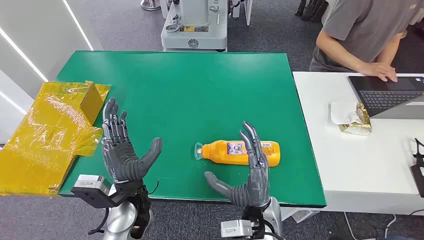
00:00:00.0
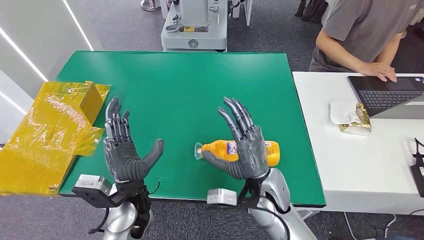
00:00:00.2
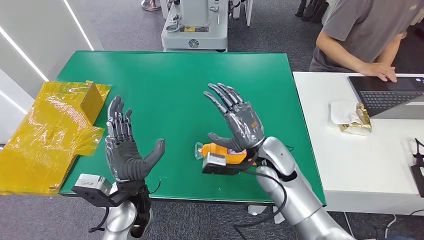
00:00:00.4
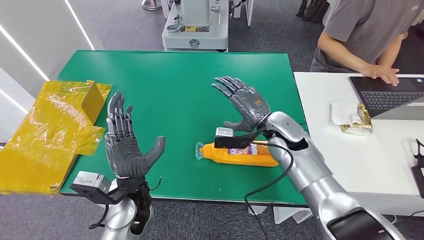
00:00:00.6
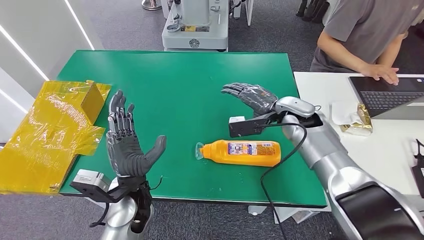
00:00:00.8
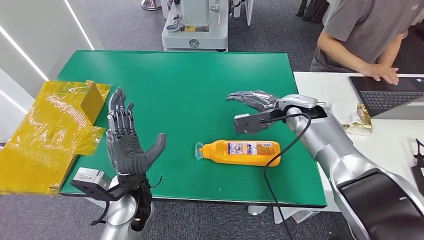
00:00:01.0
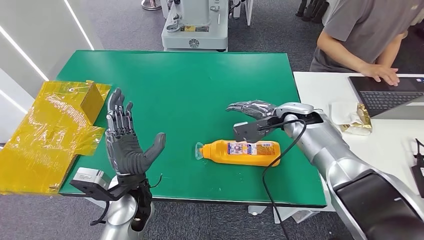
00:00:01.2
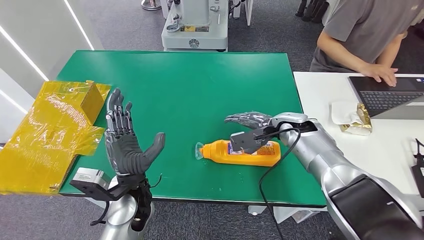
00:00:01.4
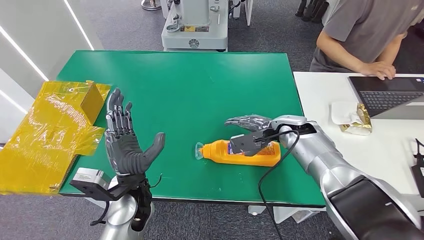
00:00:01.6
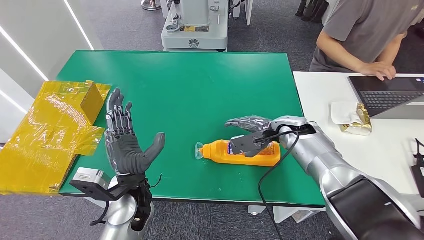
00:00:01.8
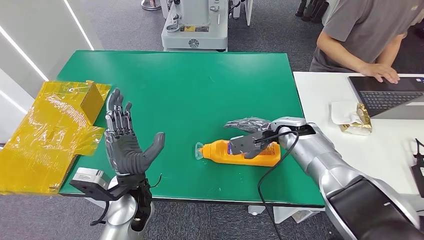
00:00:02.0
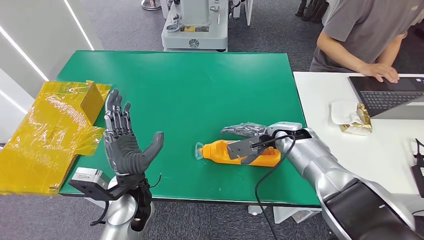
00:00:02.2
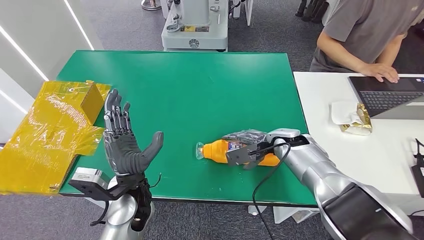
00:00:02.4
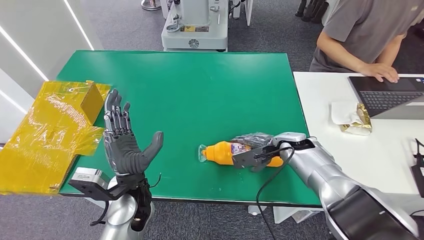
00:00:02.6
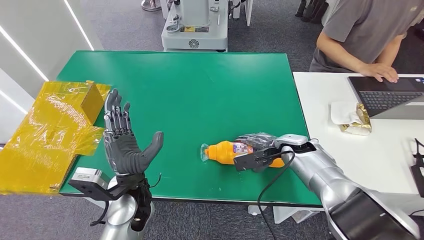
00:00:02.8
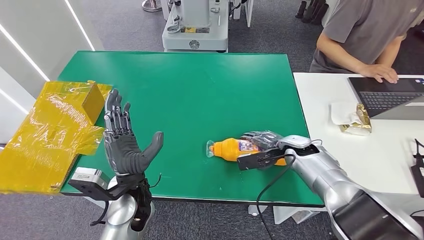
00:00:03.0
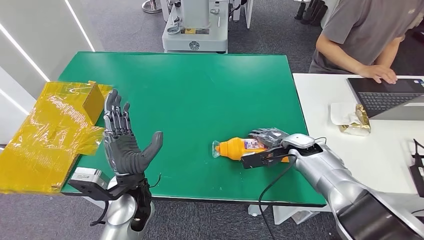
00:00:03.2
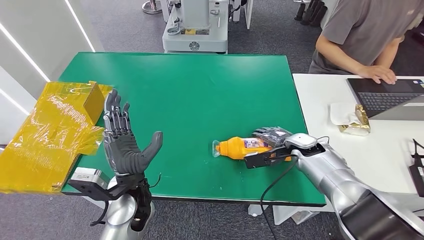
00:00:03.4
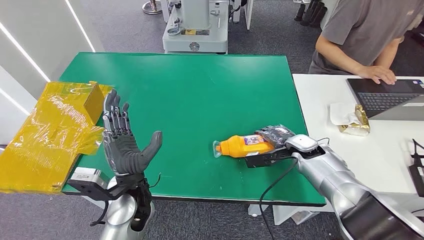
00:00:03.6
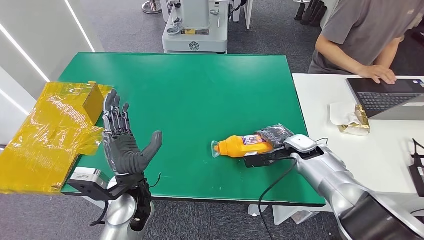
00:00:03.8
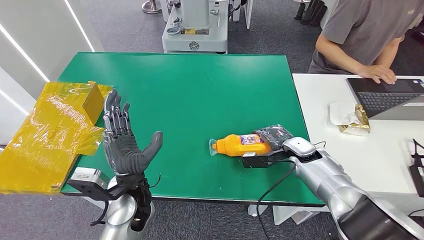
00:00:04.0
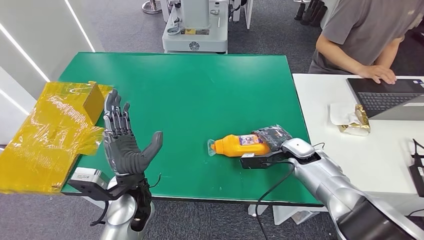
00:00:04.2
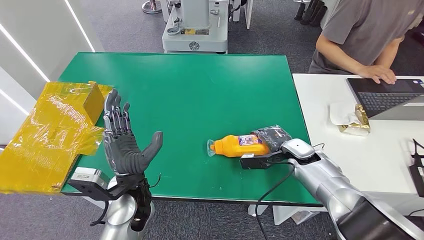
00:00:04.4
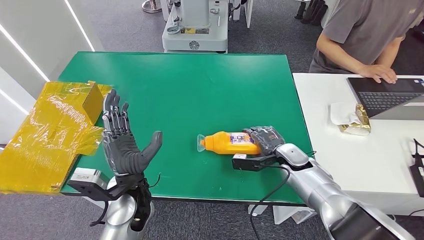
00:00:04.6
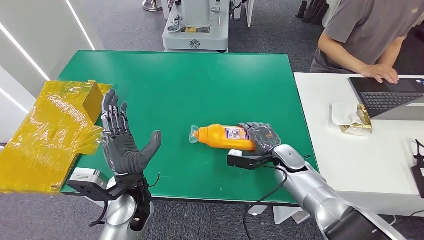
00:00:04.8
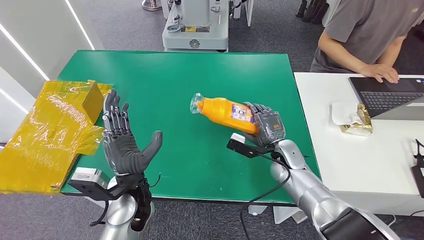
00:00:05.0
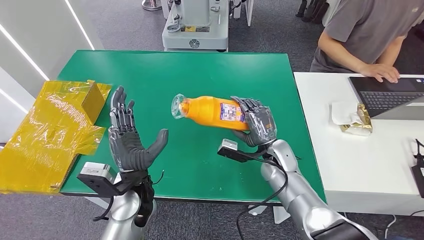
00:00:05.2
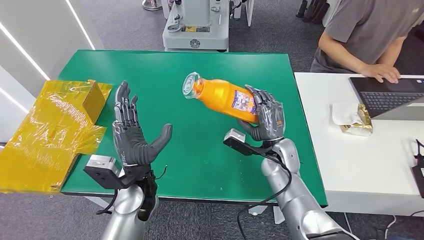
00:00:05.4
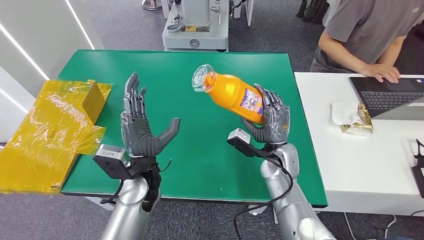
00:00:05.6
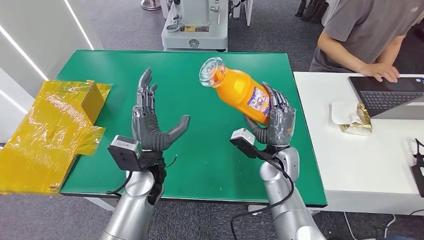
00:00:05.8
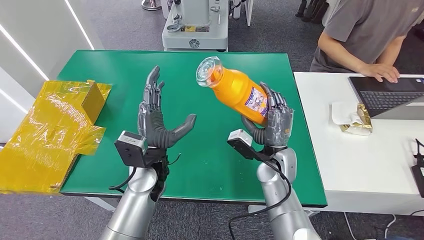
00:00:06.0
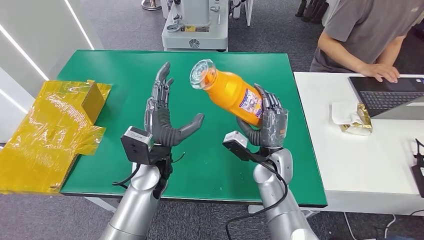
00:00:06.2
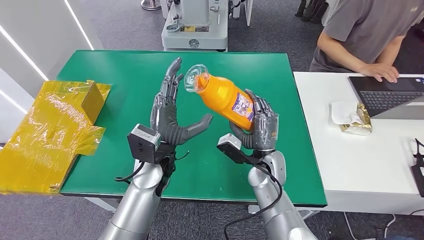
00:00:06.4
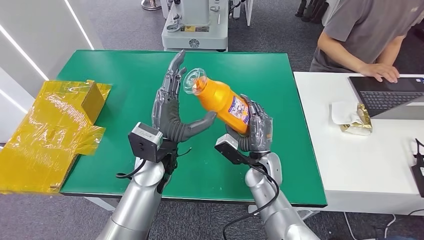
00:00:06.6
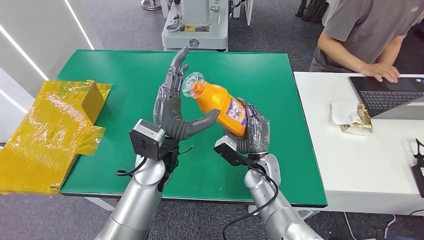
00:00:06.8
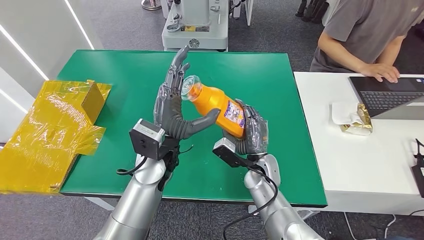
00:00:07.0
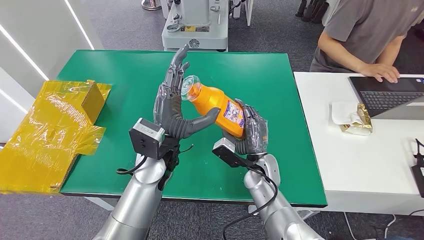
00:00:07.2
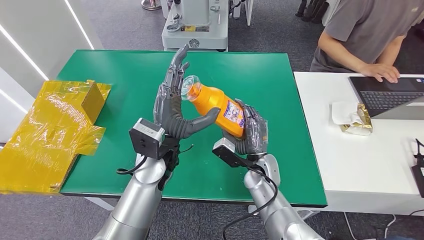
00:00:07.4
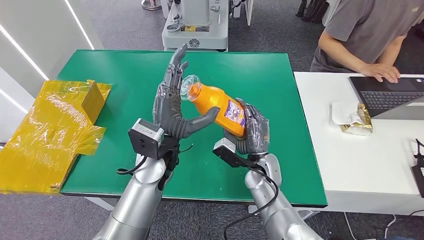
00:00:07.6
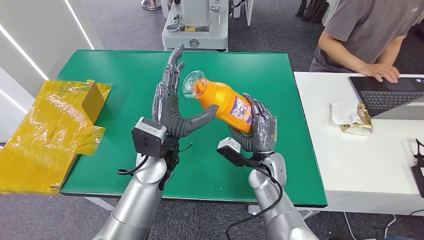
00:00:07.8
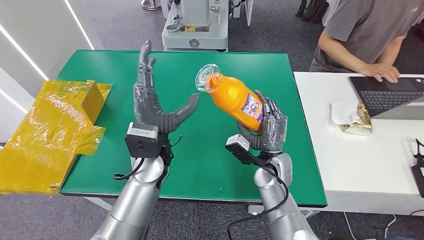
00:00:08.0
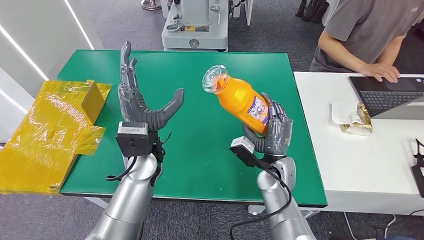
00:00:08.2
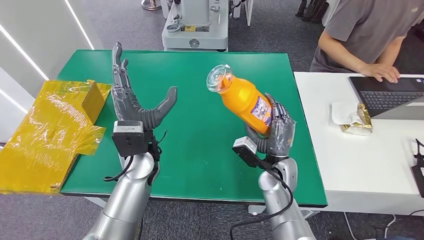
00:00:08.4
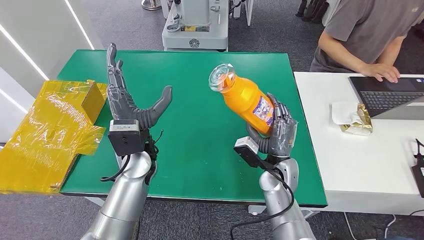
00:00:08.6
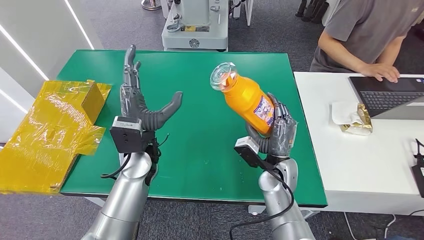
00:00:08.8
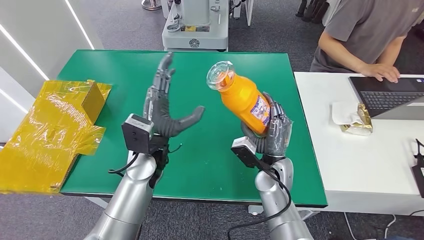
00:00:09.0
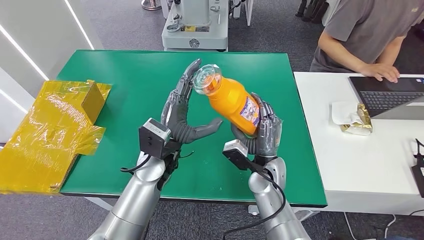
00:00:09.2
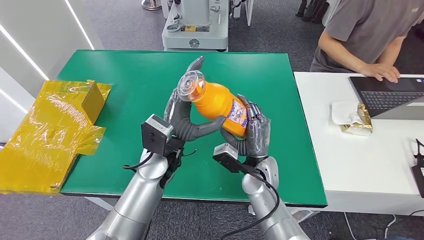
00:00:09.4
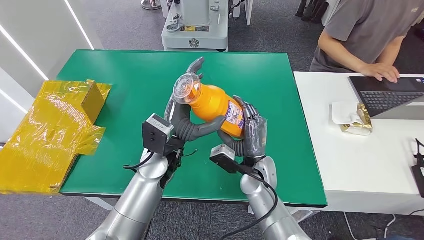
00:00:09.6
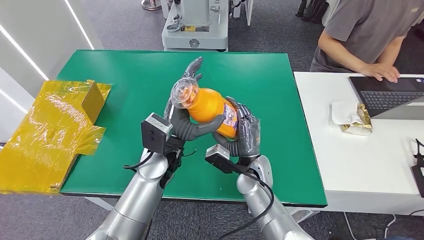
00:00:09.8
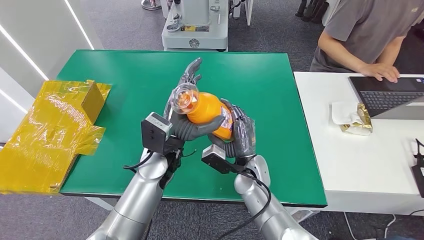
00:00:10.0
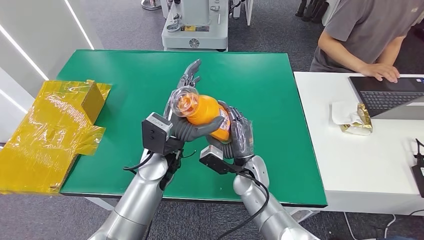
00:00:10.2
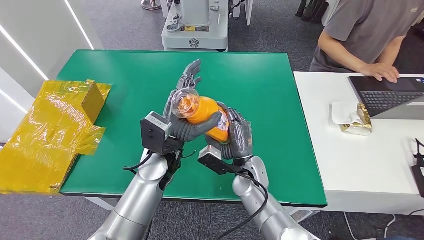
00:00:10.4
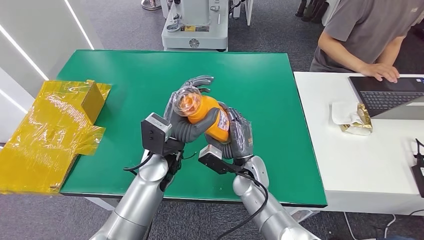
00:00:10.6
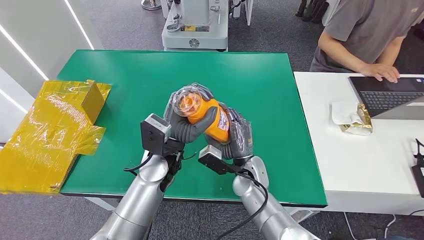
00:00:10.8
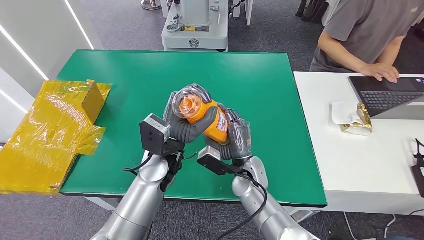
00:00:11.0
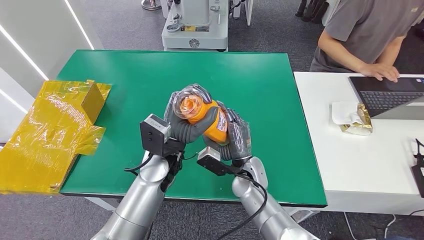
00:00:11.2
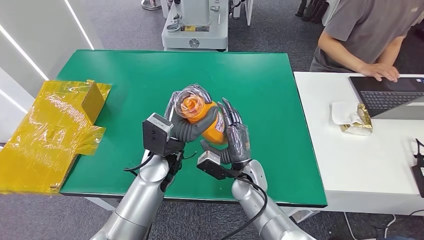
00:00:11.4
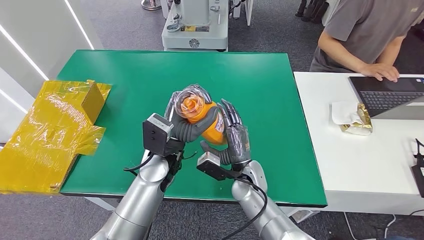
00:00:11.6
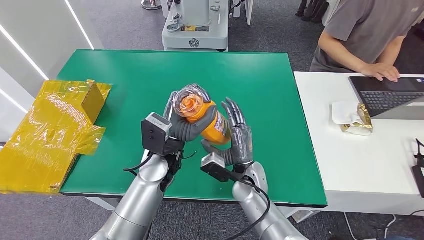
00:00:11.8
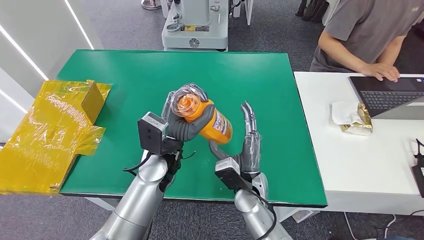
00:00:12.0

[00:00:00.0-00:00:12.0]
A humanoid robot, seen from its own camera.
Step, 00:00:00.0 to 00:00:05.6: Pick up the bottle from the table.
00:00:01.6 to 00:00:03.0: The right hand goes approximately 5 cm downward.
00:00:03.0 to 00:00:04.4: The hands move only a little.
00:00:06.0 to 00:00:07.6: The left hand moves upward, some 5 cm. The right hand moves roughly 5 cm.
00:00:09.0 to 00:00:10.4: The right hand moves to the left, roughly 5 cm.
00:00:10.4 to 00:00:12.0: The hands make only small movements.

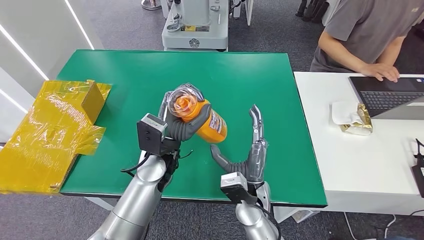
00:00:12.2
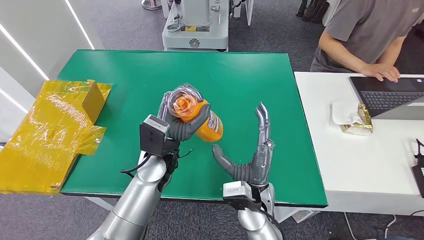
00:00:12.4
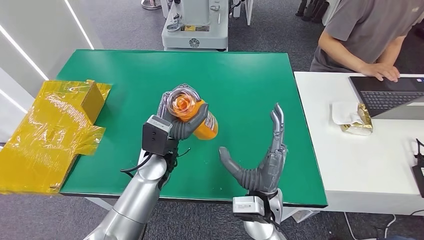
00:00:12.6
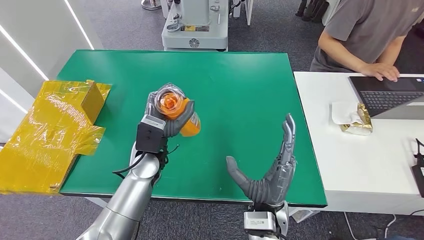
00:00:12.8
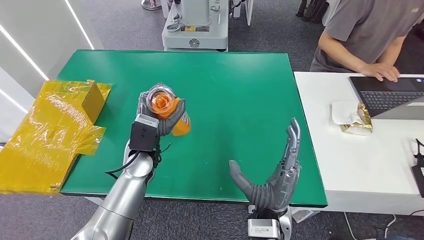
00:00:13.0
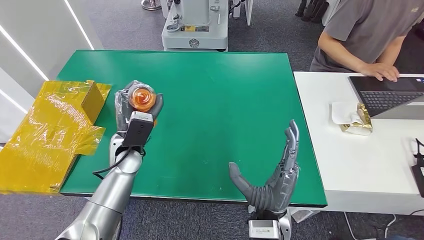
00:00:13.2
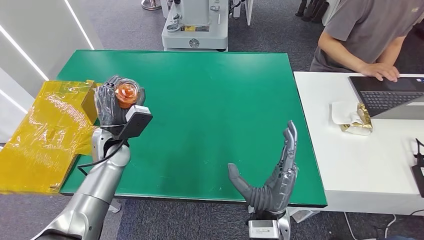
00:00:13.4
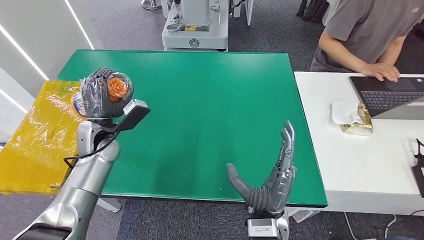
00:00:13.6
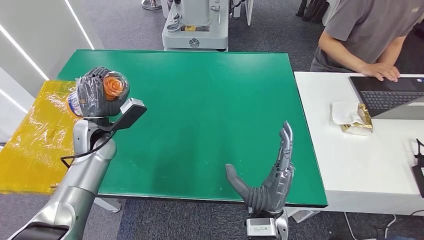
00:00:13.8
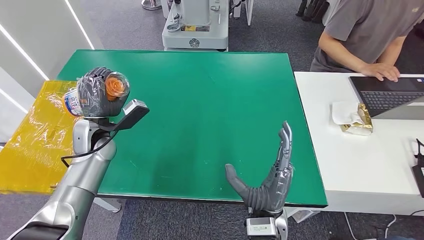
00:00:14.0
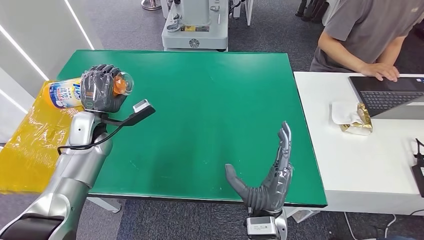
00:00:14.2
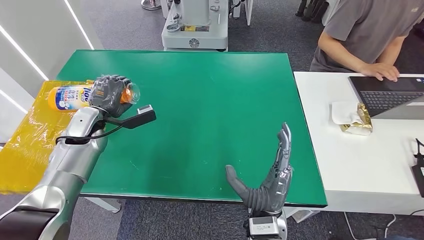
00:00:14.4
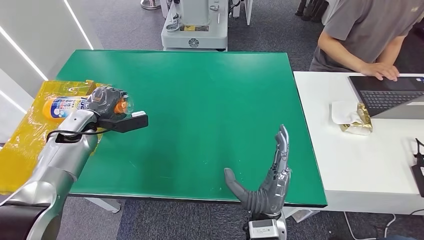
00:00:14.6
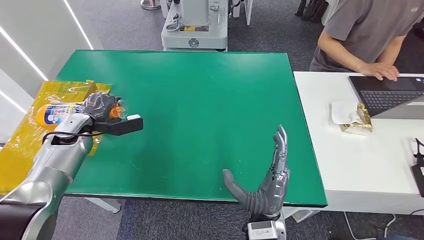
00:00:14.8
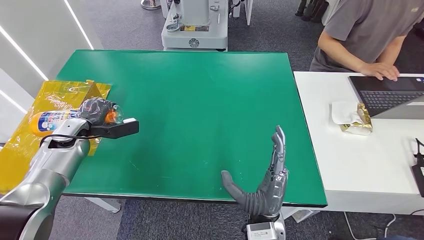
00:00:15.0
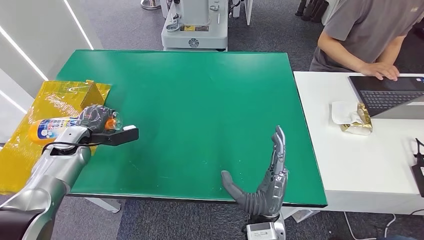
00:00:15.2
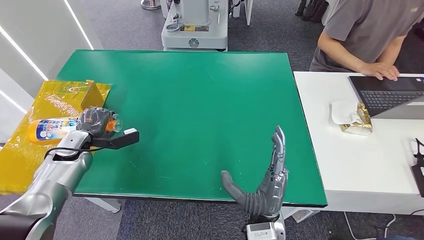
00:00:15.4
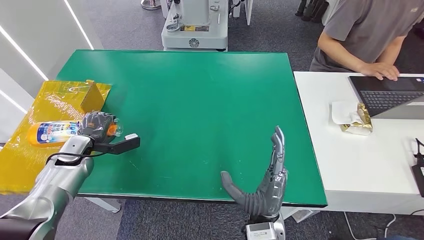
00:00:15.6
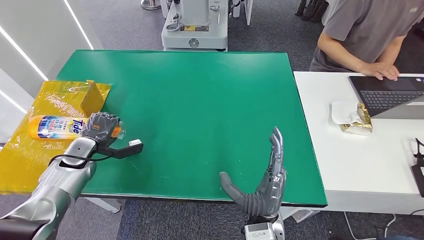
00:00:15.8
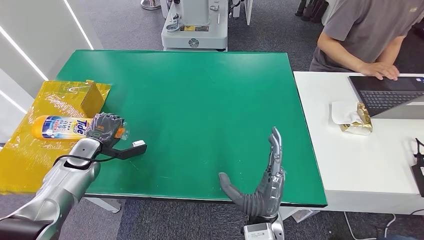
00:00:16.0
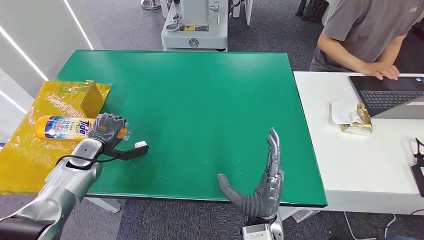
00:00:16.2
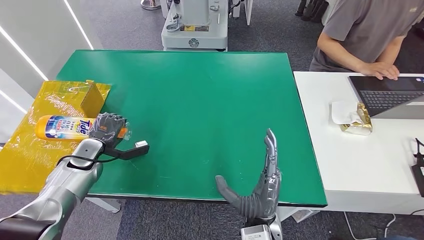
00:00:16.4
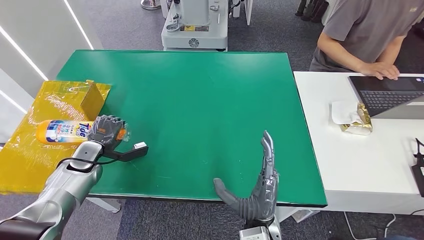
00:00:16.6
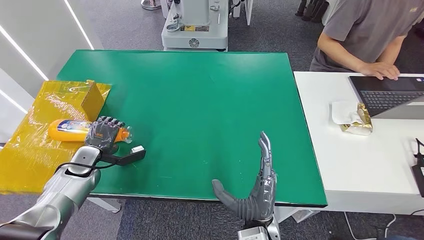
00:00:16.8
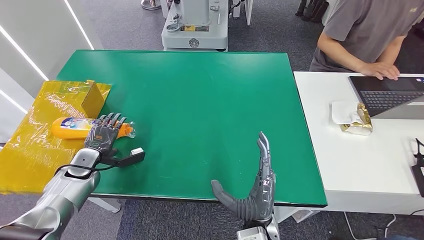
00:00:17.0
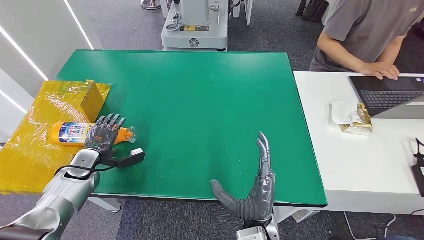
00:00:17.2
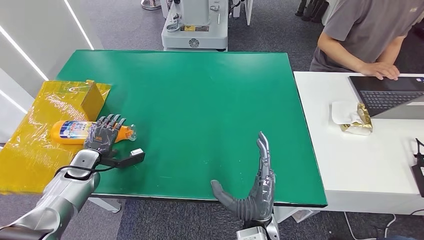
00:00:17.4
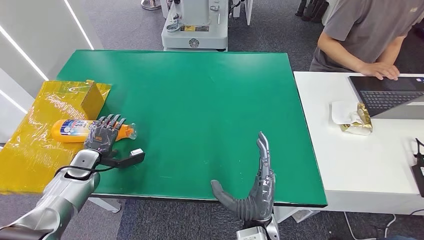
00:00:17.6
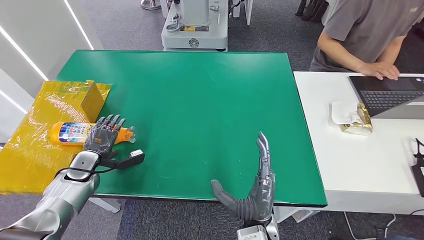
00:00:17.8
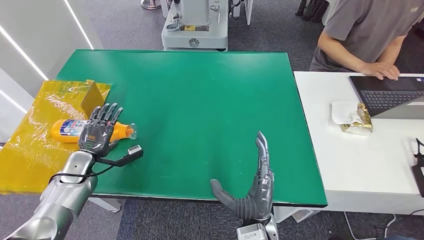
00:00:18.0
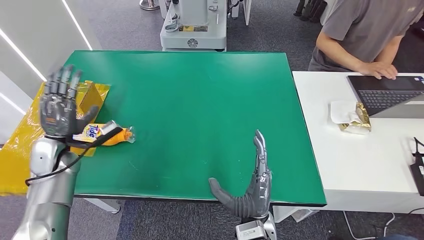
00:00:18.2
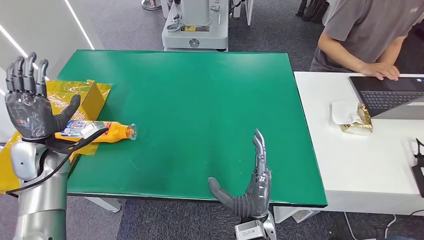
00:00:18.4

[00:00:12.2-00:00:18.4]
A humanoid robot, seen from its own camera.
Step, 00:00:12.2 to 00:00:18.4: Turn the bottle to the front side.
00:00:12.2 to 00:00:13.8: The left hand moves to the left, about 20 cm. The right hand heads backward, covering approximately 5 cm.
00:00:13.8 to 00:00:15.4: The left hand goes roughly 10 cm to the left and downward.
00:00:15.4 to 00:00:16.8: The left hand ends up approximately 5 cm from where it was.
00:00:16.8 to 00:00:18.4: The left hand shifts some 10 cm upward.
